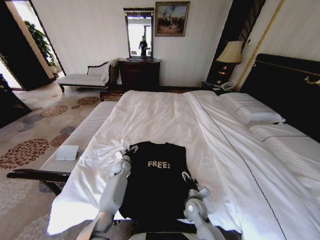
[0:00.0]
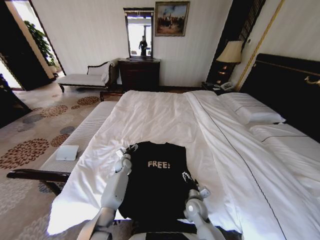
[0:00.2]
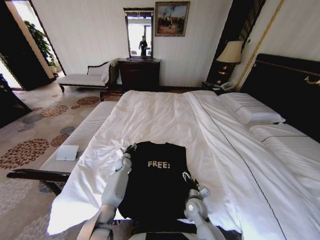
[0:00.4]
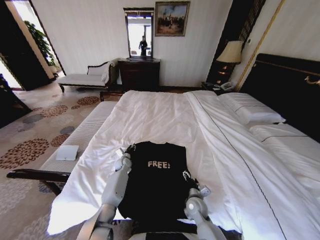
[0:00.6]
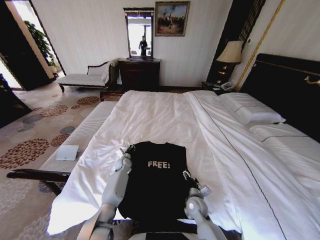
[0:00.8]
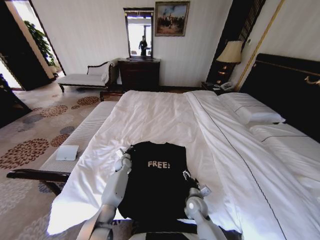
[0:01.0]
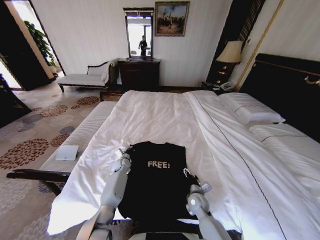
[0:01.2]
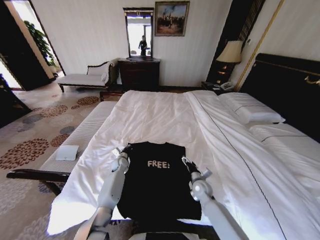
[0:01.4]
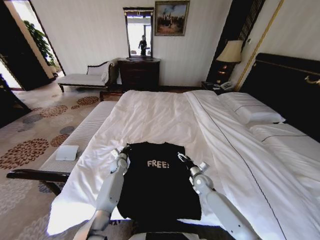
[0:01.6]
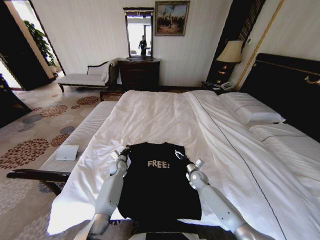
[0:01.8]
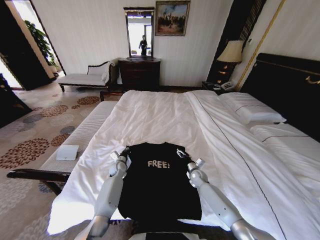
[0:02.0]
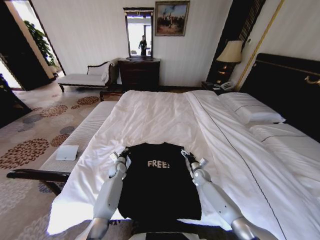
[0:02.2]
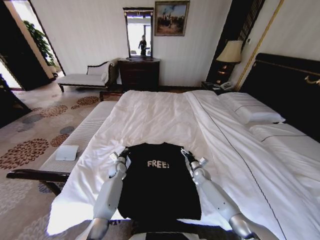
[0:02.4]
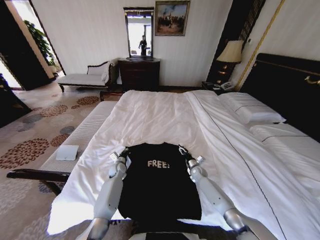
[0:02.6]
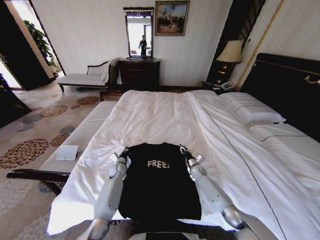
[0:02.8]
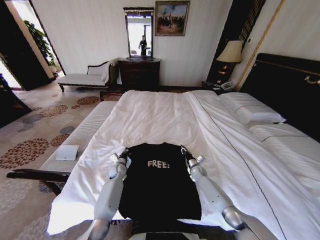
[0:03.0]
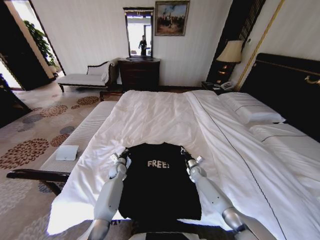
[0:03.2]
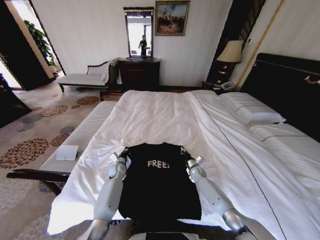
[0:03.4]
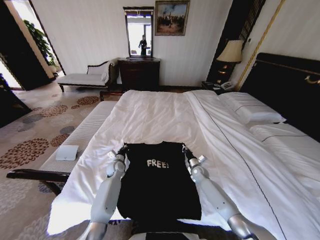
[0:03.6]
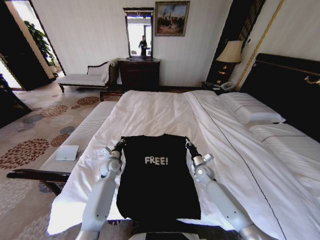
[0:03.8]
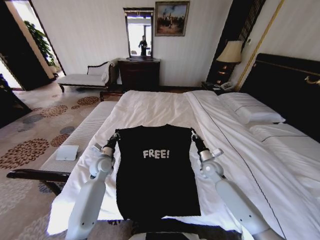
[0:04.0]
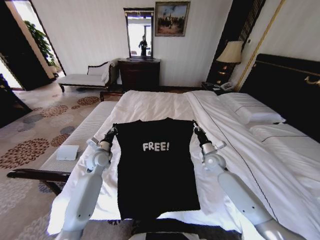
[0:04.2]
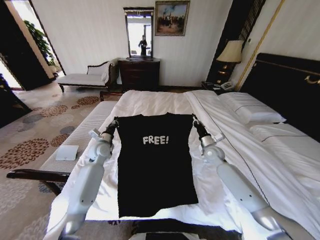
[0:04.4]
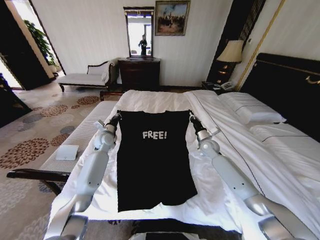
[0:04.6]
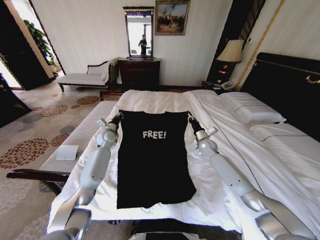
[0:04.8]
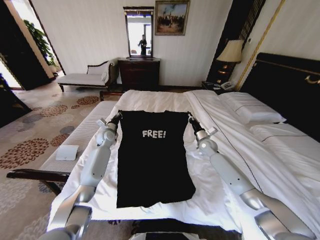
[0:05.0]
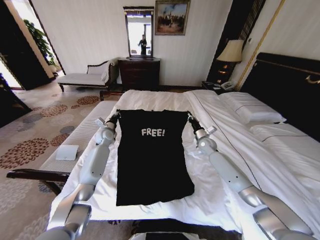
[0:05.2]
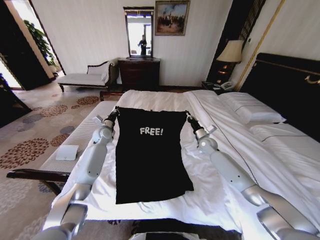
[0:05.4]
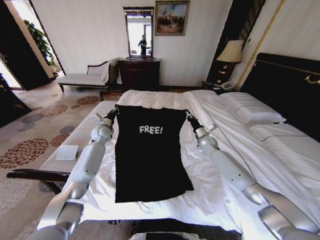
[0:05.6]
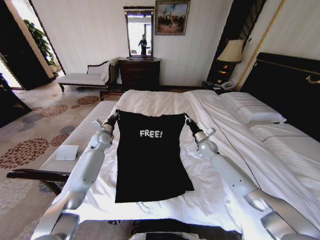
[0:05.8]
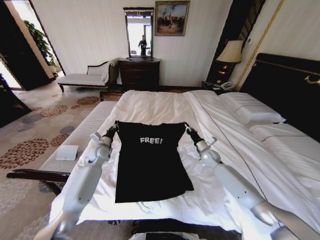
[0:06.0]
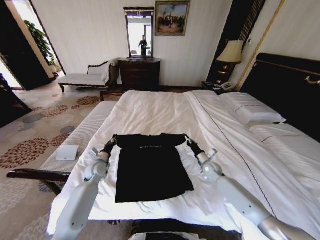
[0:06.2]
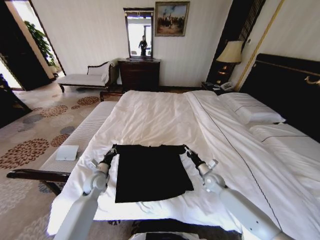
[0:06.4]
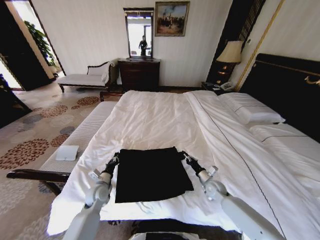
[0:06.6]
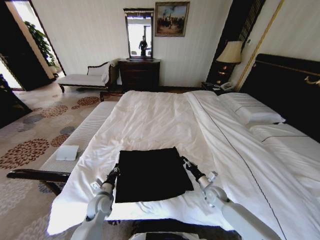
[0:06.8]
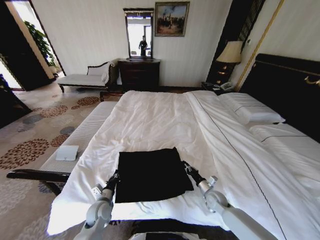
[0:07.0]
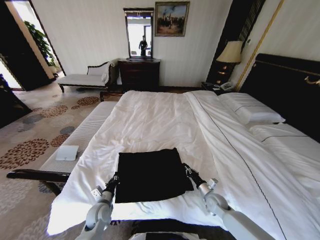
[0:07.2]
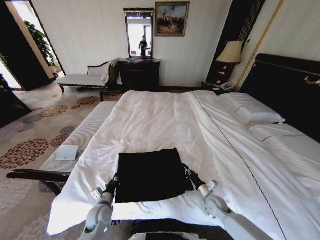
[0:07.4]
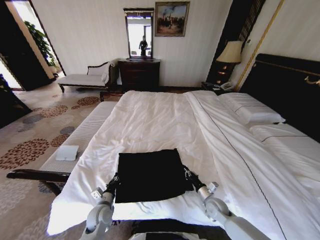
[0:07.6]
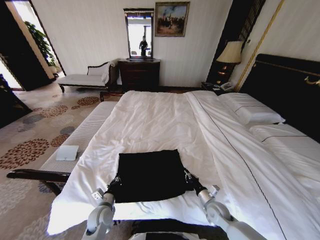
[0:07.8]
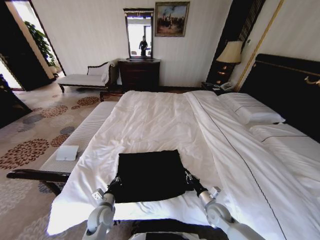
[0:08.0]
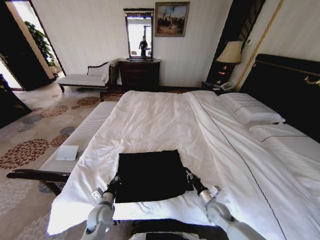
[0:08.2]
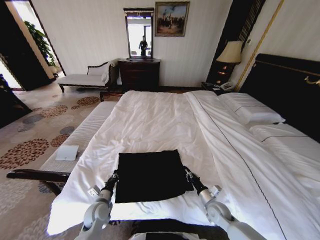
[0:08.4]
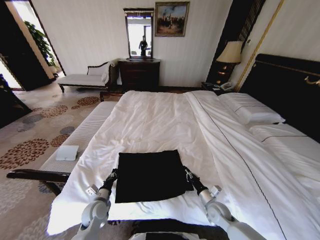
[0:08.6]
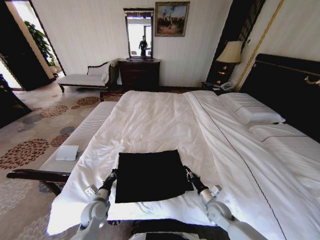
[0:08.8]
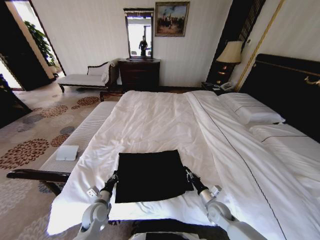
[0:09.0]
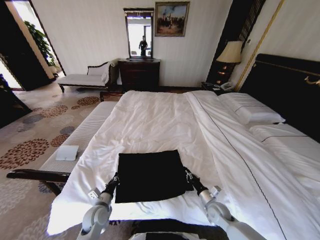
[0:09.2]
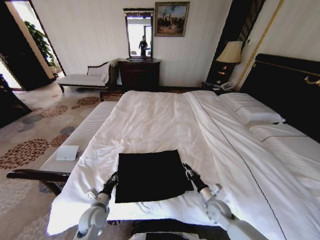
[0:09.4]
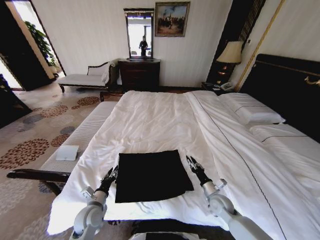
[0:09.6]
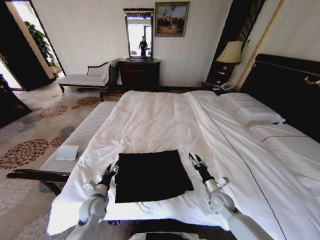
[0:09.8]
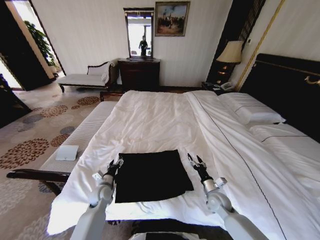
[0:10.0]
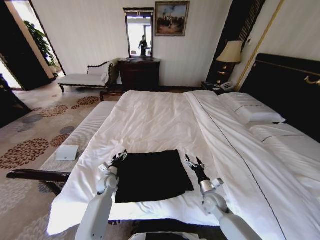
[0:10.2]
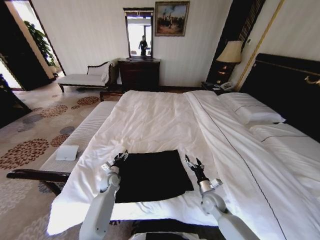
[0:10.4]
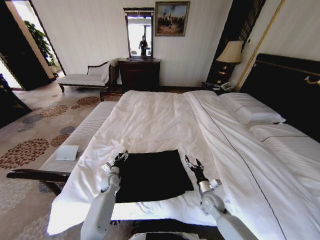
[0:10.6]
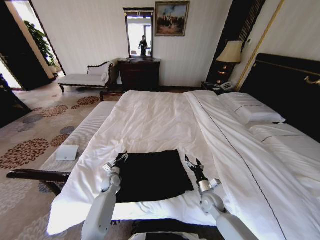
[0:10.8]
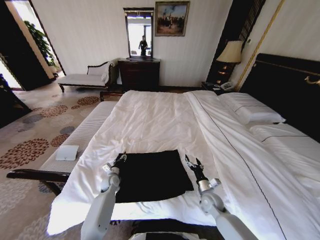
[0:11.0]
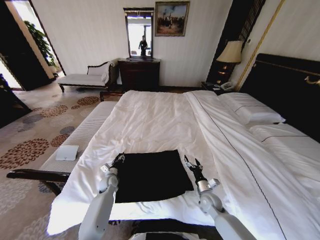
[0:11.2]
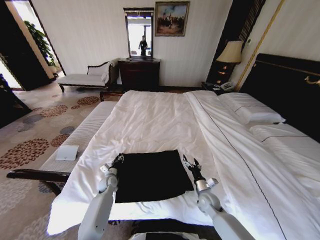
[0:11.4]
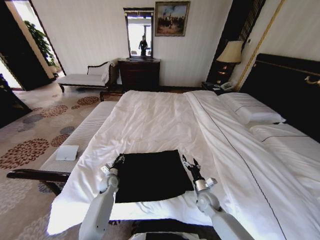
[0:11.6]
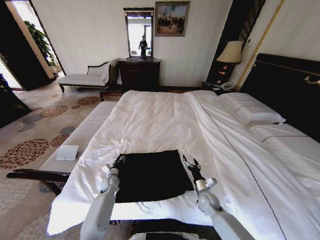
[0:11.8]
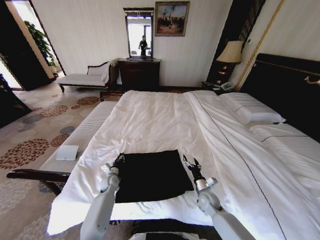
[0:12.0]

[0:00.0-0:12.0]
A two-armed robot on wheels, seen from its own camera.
Task of the whole recording: Fold the clothes on the bed.
0:00.0 to 0:01.6: The right gripper moves forward and to the right, approximately 15 cm, while the left gripper closes its fingers.
0:01.6 to 0:03.0: The right gripper is displaced forward and downward by approximately 10 cm, and closes.
0:03.0 to 0:04.4: The grippers both shift upward by roughly 20 cm. The right gripper closes up.
0:04.4 to 0:06.0: The left gripper reaches about 10 cm forward, then returns. The right gripper shifts approximately 5 cm downward.
0:06.0 to 0:07.6: The grippers both shift backward and downward by about 25 cm.
0:07.6 to 0:09.0: The grippers move only a little.
0:09.0 to 0:10.4: The right gripper opens. The left gripper goes some 15 cm forward, and opens its fingers.
0:10.4 to 0:12.0: The left gripper closes.

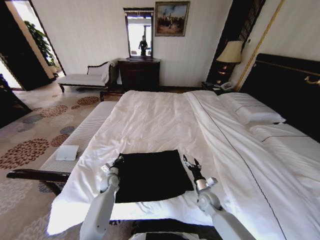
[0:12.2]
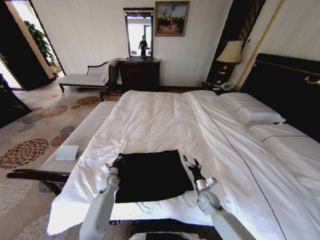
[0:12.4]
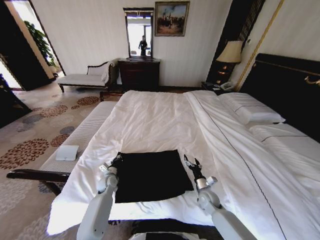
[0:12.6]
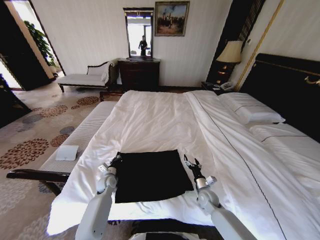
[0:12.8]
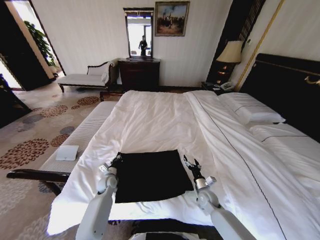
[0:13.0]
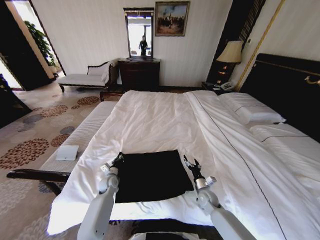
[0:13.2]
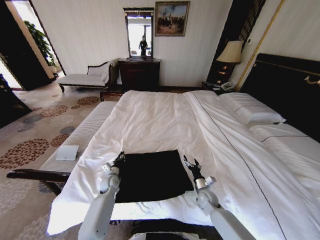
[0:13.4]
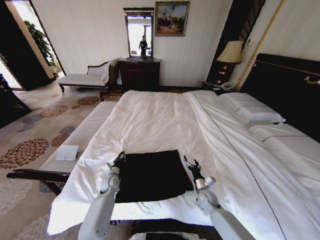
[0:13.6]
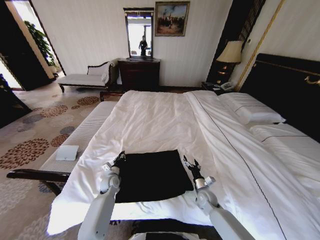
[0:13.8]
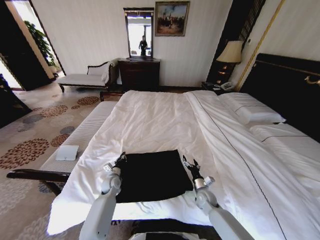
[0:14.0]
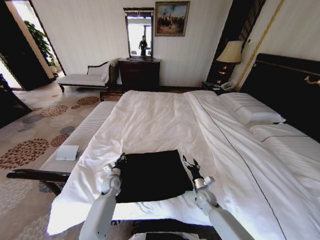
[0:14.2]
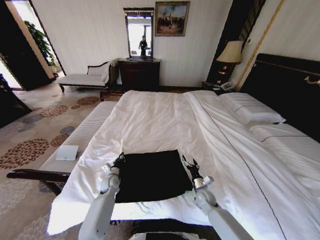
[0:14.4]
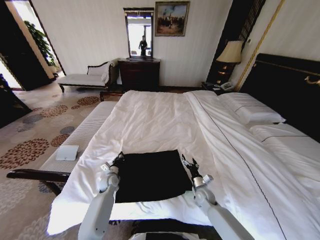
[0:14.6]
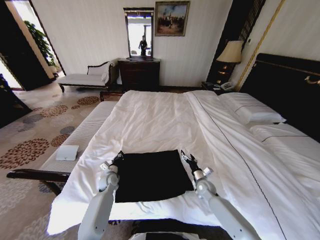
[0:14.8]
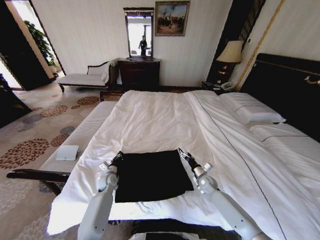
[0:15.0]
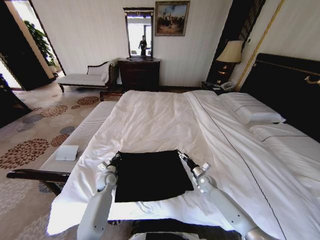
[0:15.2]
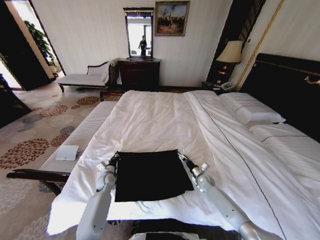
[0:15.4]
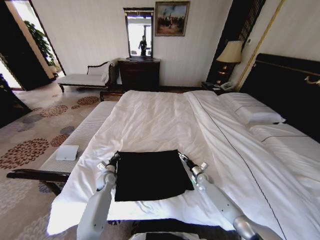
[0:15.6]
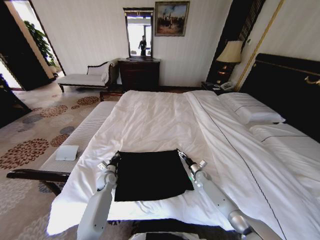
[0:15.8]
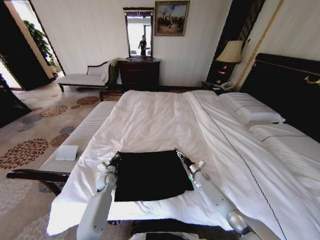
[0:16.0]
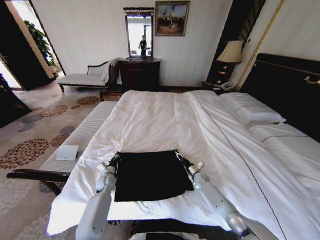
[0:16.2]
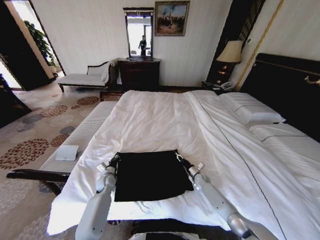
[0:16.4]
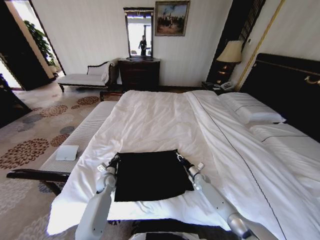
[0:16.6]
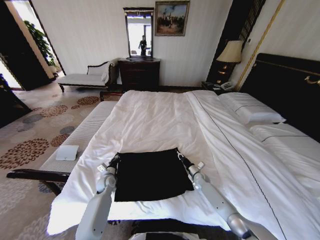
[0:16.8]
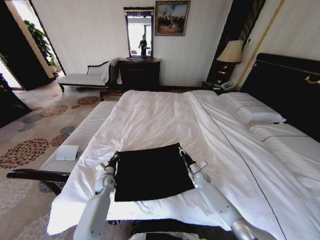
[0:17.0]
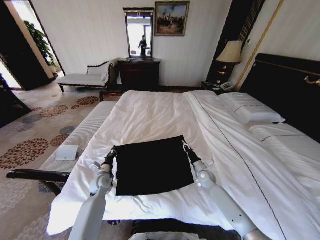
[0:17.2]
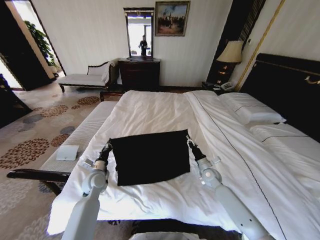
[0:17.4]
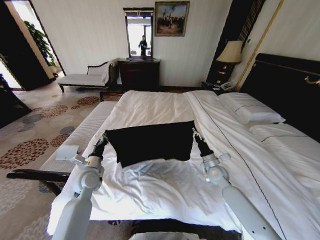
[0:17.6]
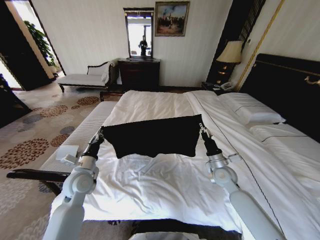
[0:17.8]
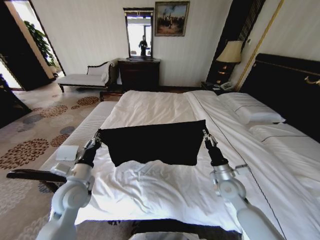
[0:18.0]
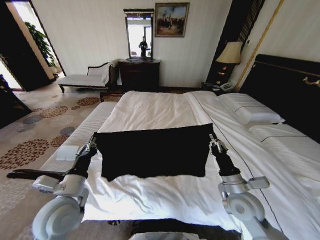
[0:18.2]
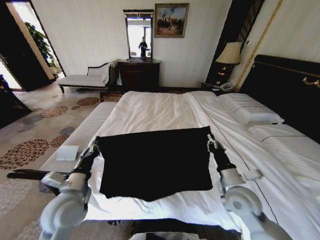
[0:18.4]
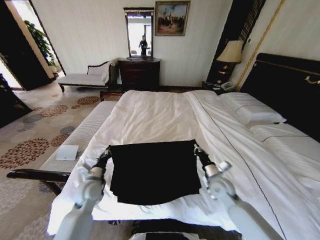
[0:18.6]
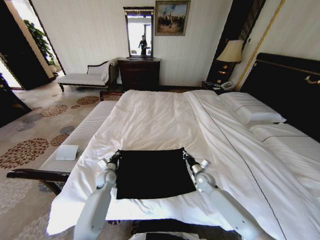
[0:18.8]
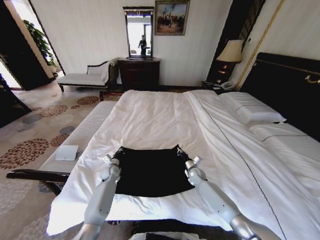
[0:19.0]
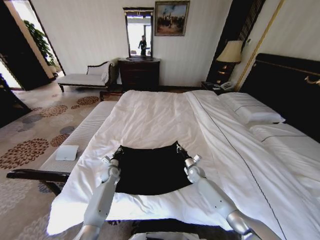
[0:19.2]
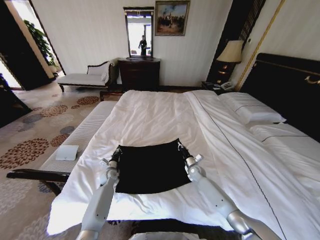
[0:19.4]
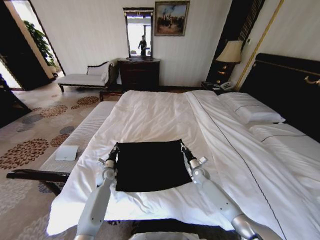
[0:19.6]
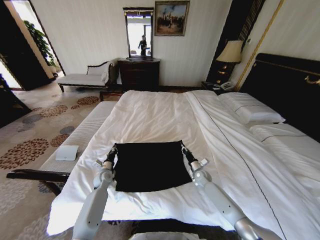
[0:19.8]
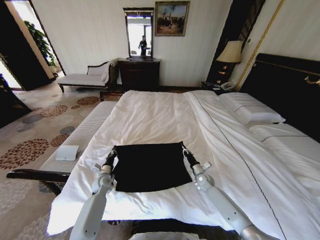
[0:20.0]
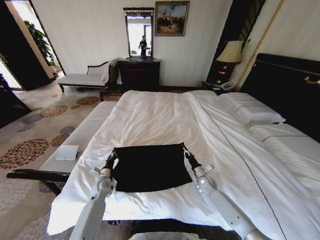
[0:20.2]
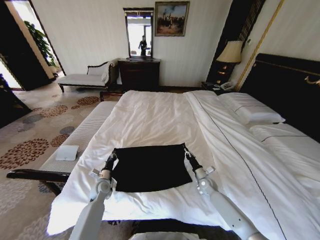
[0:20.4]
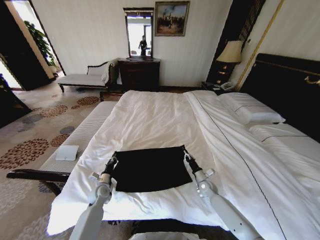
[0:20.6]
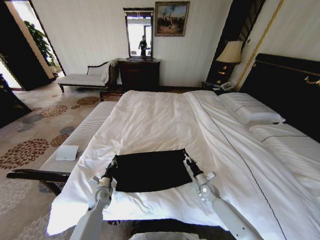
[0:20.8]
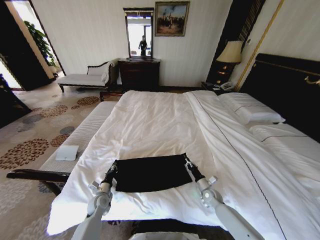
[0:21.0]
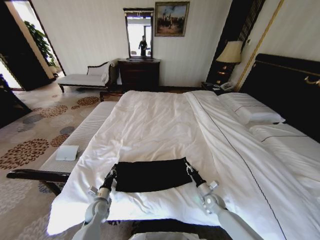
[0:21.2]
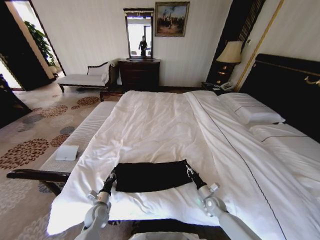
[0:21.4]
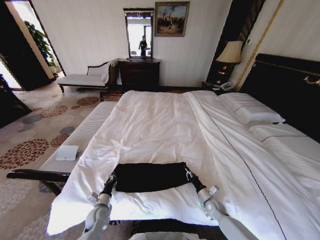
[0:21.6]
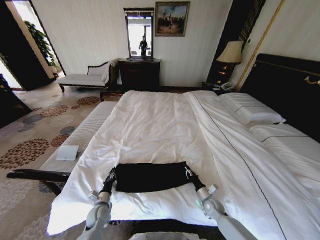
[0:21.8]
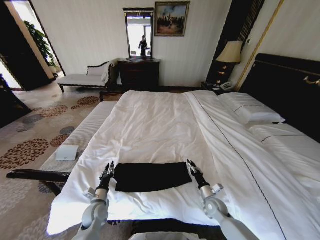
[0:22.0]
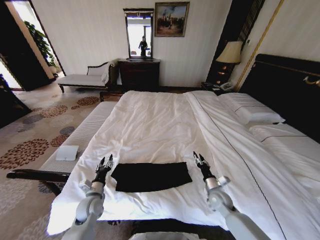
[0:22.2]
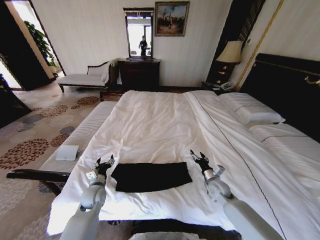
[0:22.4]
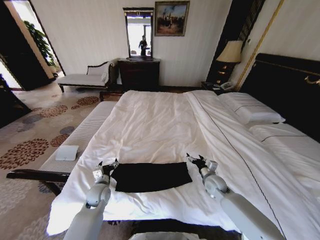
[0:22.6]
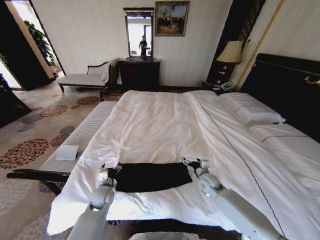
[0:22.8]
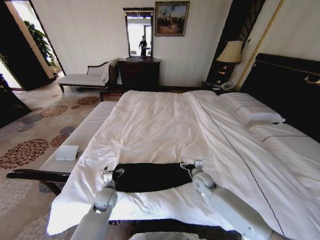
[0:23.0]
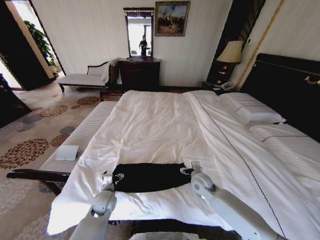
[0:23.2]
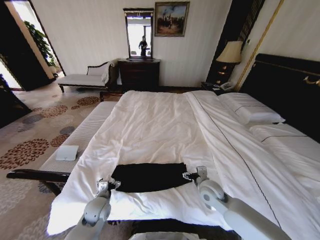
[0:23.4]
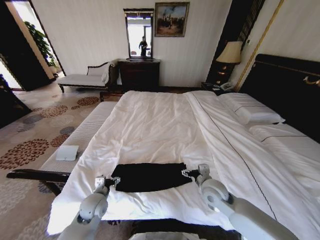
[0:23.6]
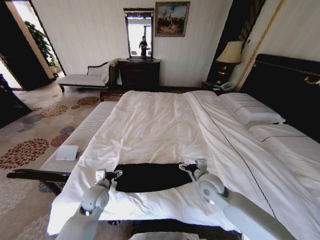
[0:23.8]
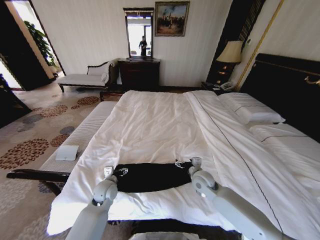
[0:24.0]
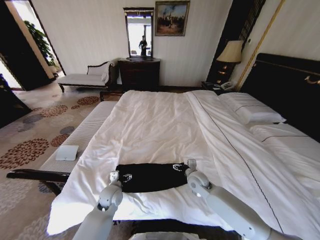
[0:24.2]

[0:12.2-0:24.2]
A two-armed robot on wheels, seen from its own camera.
Task of the whole recording: Fold the clothes on the bed.
0:12.2 to 0:13.8: There are only small adjustments of the grippers.
0:13.8 to 0:15.2: The right gripper moves forward, approximately 10 cm.
0:15.2 to 0:16.6: The right gripper shifts some 5 cm downward, and closes.
0:16.6 to 0:18.2: The two grippers go some 30 cm upward and backward.
0:18.2 to 0:19.8: Both grippers travel together downward and forward, some 30 cm.
0:19.8 to 0:21.2: Both grippers move backward, roughly 15 cm.
0:21.2 to 0:22.6: The two grippers go about 10 cm upward. The left gripper opens up. The right gripper opens up.
0:22.6 to 0:24.2: The right gripper travels to the left by roughly 10 cm, and travels upward and back again, some 10 cm each way; the left gripper shifts approximately 5 cm to the right, and goes upward and returns, roughly 5 cm each way.
